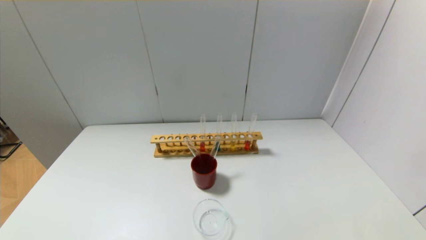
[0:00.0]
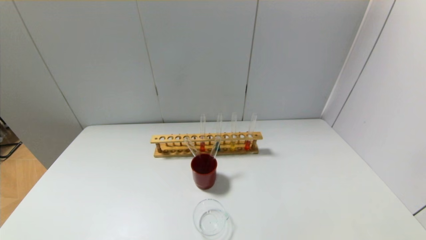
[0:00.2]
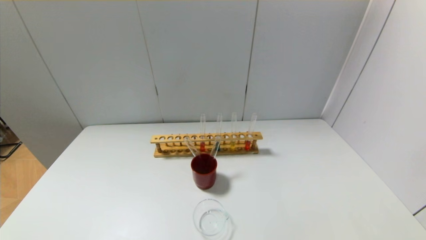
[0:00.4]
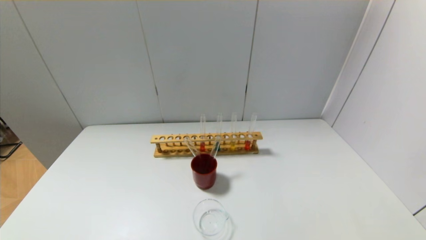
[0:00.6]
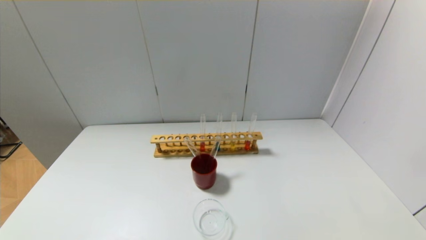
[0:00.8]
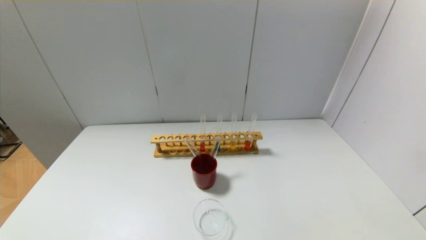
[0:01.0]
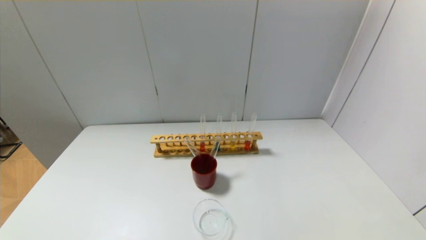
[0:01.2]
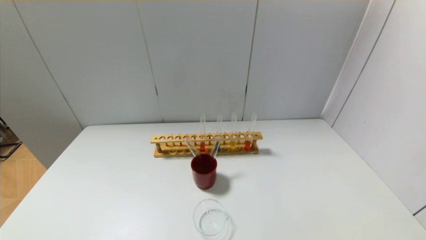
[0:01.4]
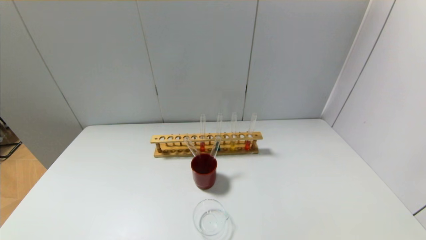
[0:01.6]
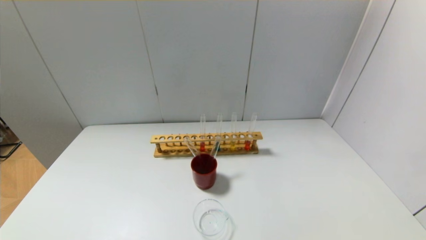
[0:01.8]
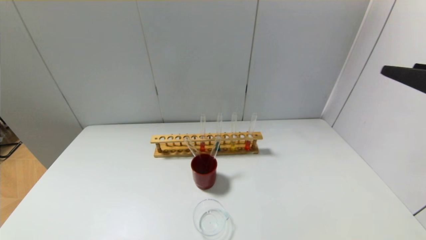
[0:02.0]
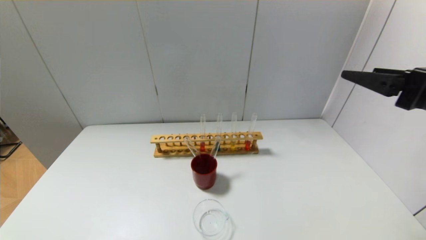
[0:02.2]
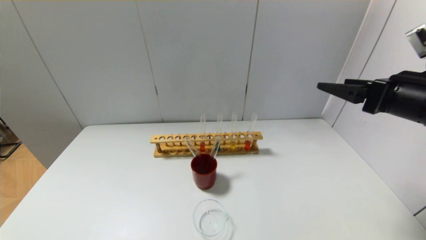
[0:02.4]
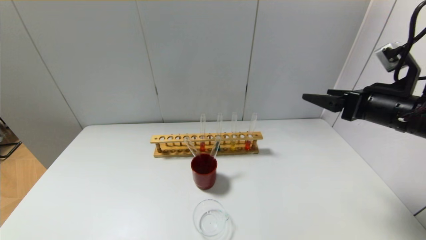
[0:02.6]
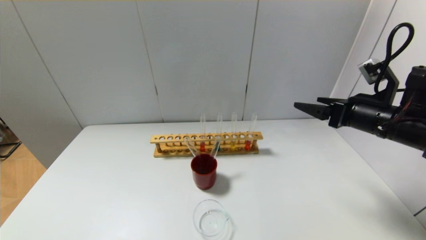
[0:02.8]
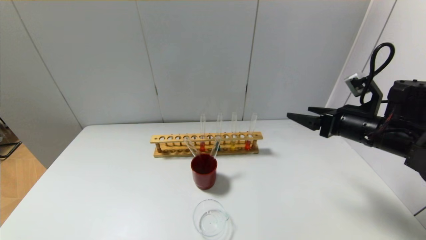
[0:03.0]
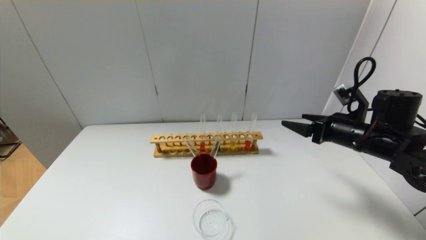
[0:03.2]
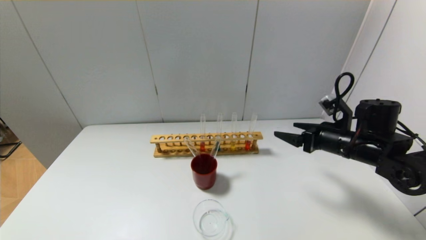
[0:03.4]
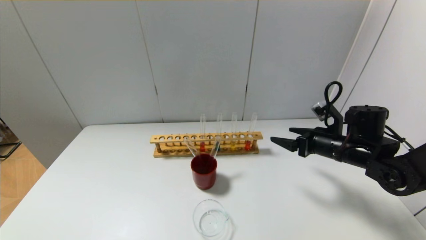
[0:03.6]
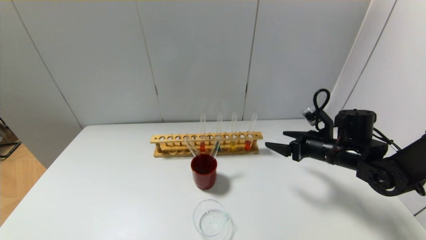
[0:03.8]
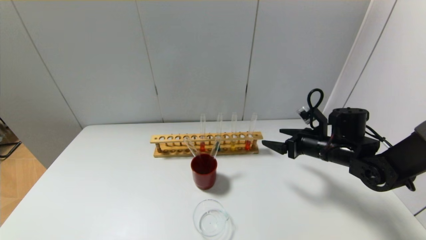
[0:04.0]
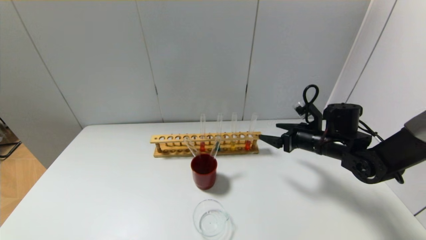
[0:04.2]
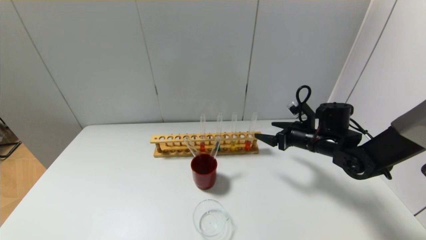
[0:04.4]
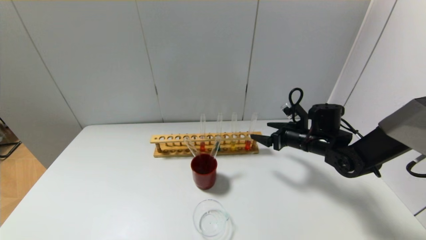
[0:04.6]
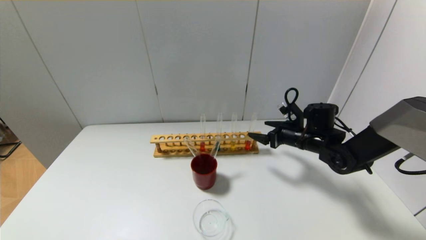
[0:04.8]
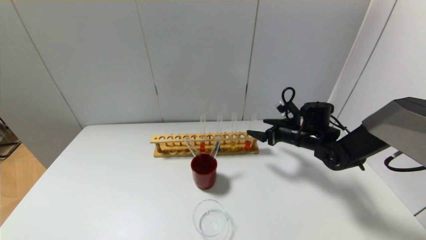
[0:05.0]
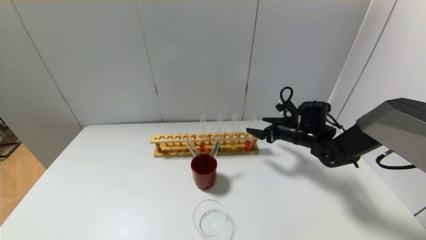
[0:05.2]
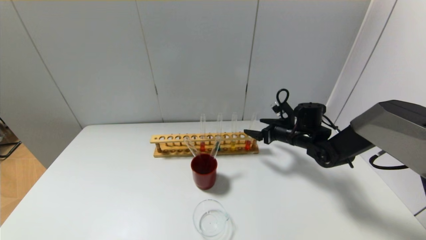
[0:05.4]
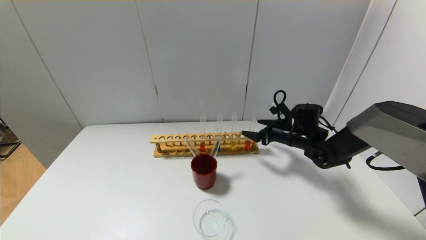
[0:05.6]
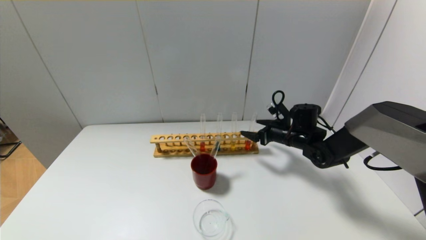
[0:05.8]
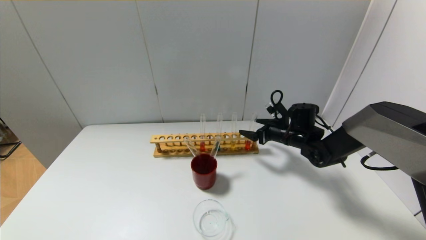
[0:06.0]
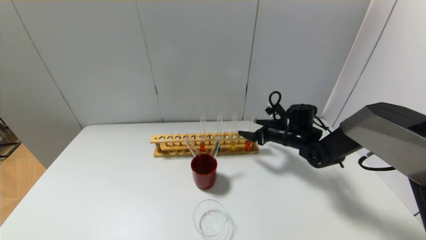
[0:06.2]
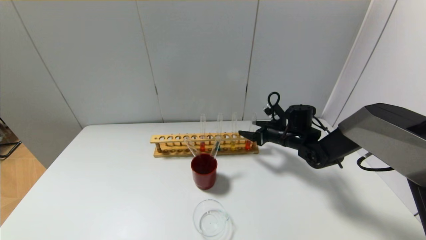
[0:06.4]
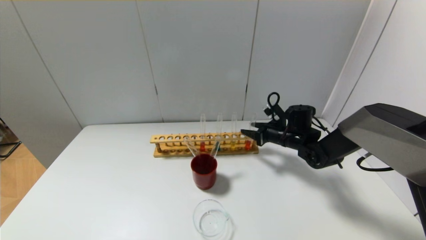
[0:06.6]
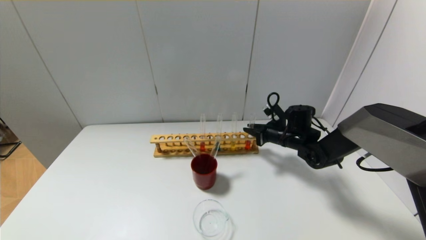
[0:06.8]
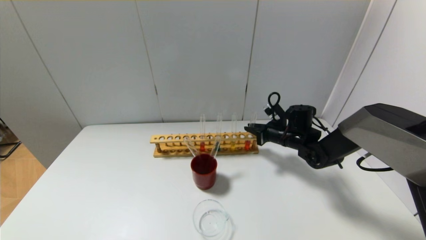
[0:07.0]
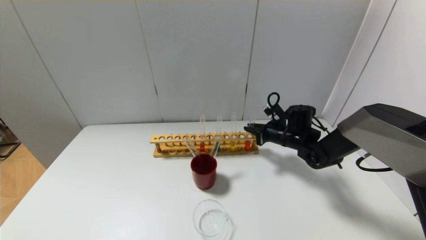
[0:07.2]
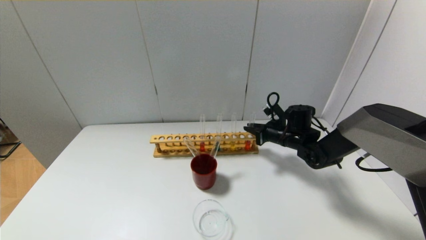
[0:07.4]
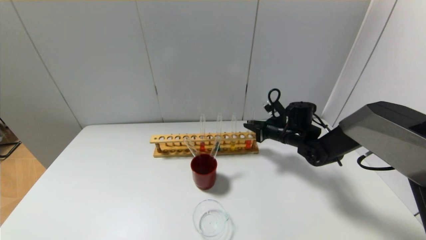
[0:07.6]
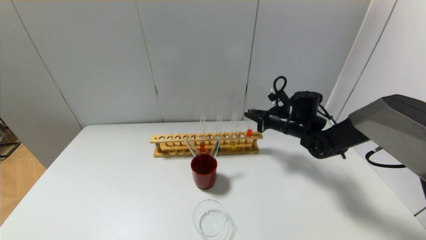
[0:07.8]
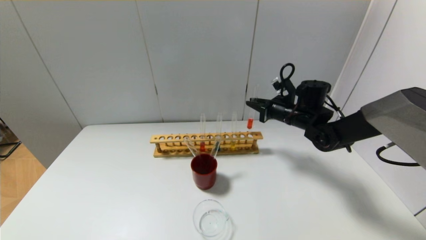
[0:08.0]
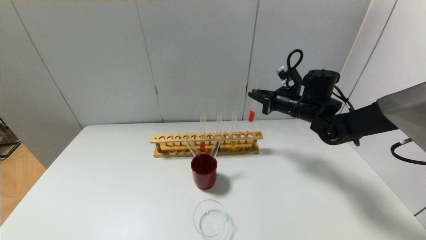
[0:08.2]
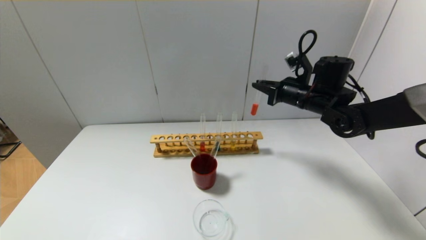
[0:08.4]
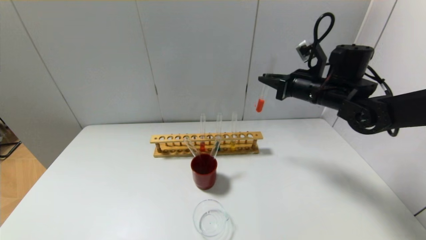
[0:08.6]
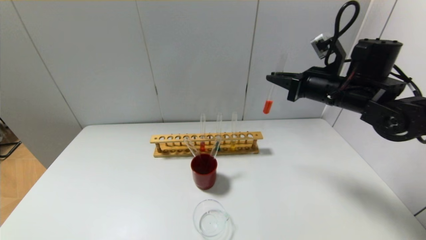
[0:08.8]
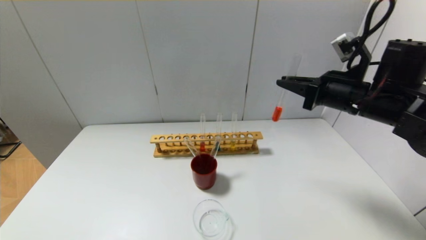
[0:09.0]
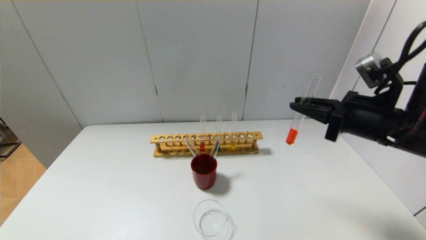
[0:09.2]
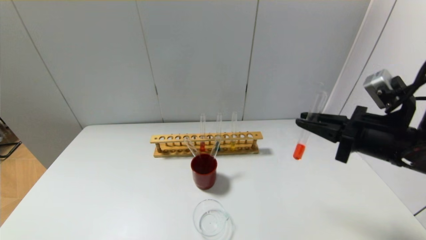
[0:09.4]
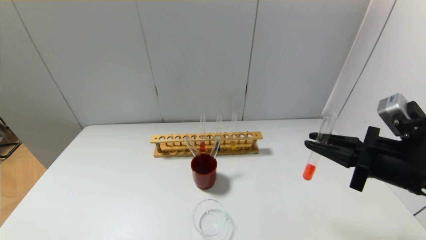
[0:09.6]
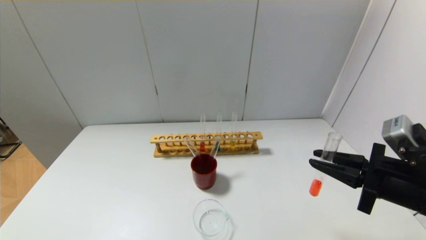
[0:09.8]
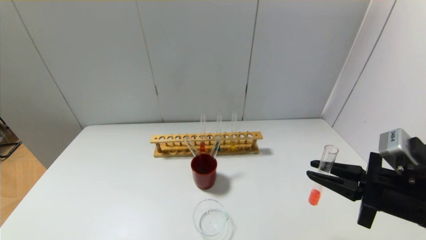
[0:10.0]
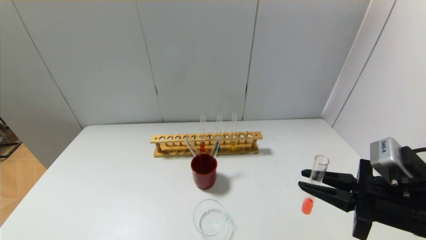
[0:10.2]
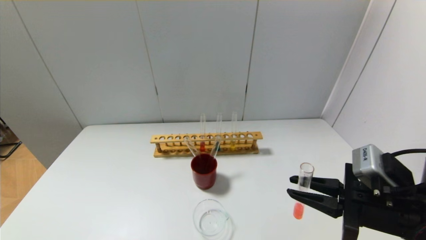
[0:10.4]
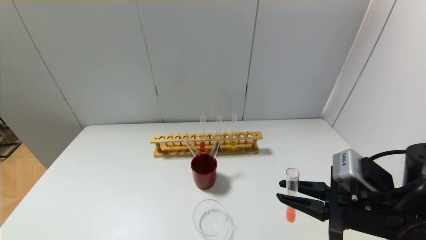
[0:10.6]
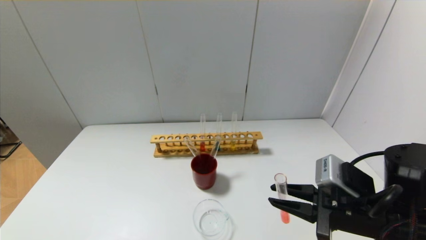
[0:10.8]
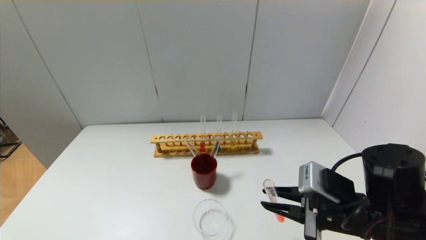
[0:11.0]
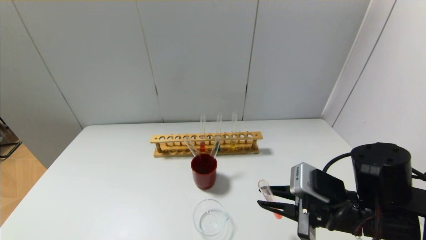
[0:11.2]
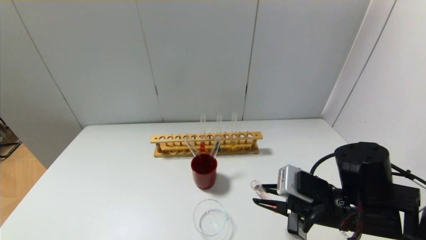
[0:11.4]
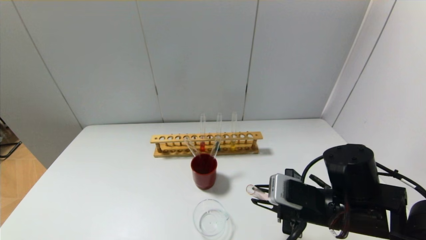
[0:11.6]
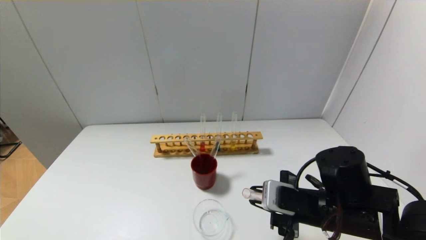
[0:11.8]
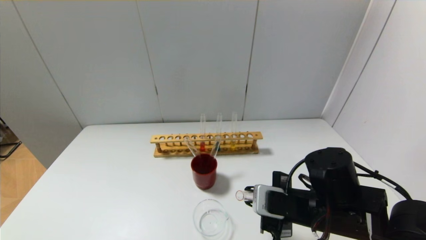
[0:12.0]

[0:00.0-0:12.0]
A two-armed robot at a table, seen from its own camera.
Step, 0:00.0 to 0:07.4: Grasp the red reagent with the right gripper.
0:01.6 to 0:03.0: The right gripper goes about 30 cm forward and downward.
0:03.0 to 0:04.4: The right gripper is displaced downward and forward by roughly 10 cm.
0:04.4 to 0:06.0: The right gripper travels forward by approximately 5 cm.
0:06.0 to 0:07.6: The right gripper closes up.
0:07.6 to 0:09.0: The right gripper moves upward and backward, approximately 20 cm.
0:09.0 to 0:10.4: The right gripper goes about 15 cm backward and downward.
0:10.4 to 0:12.0: The right gripper goes about 10 cm to the left and downward.

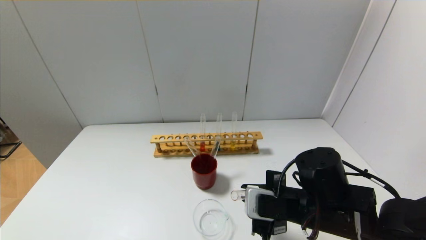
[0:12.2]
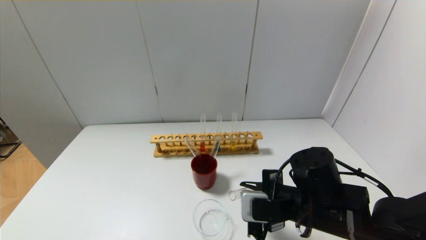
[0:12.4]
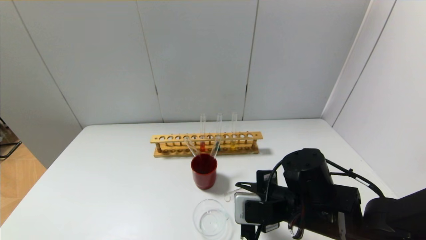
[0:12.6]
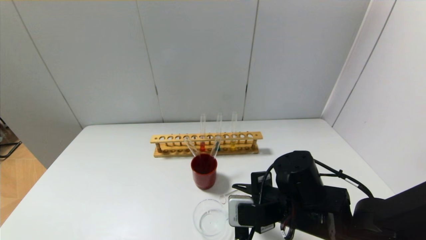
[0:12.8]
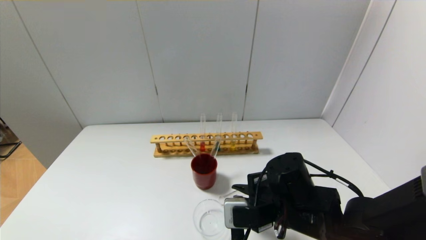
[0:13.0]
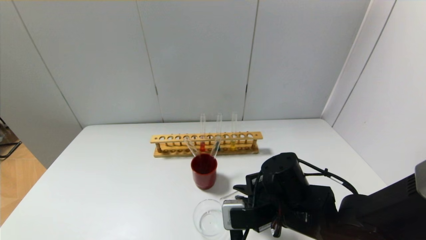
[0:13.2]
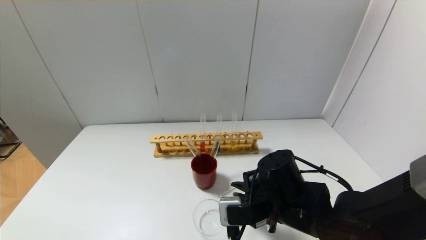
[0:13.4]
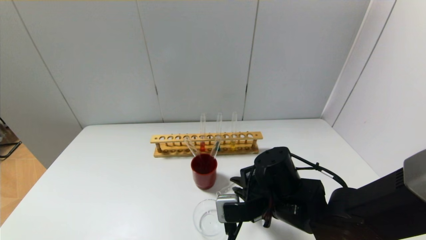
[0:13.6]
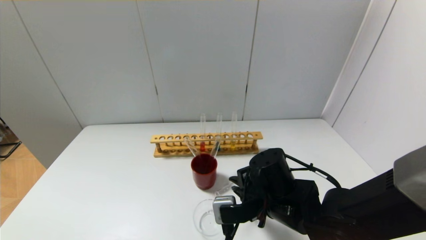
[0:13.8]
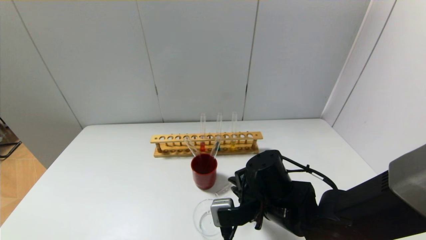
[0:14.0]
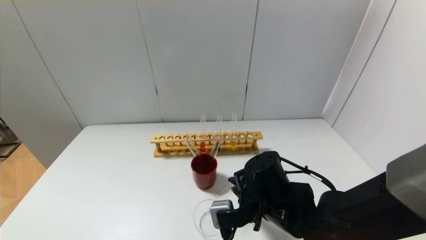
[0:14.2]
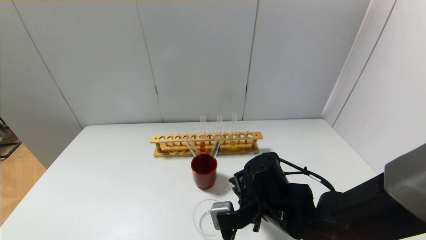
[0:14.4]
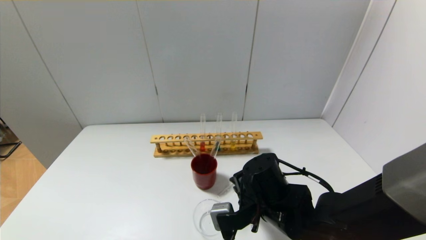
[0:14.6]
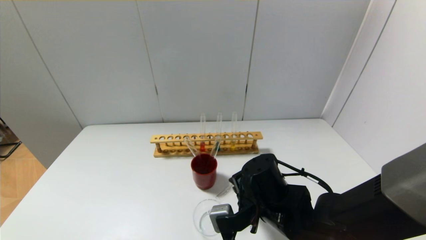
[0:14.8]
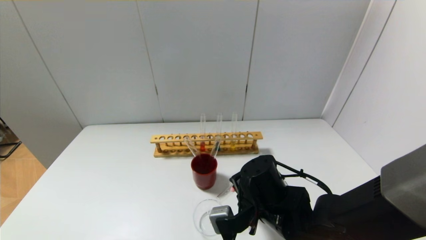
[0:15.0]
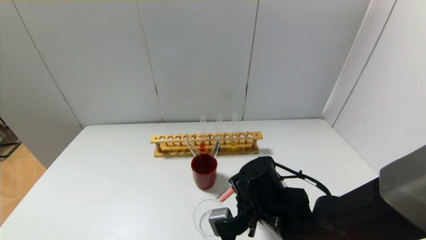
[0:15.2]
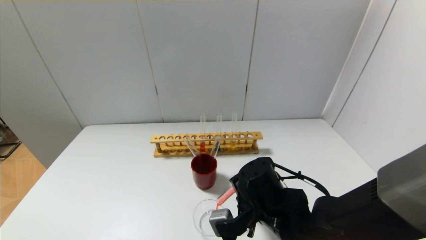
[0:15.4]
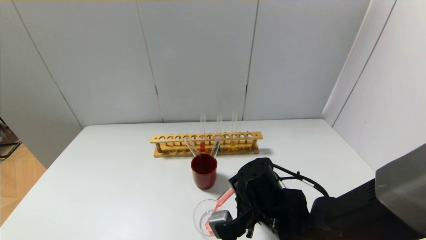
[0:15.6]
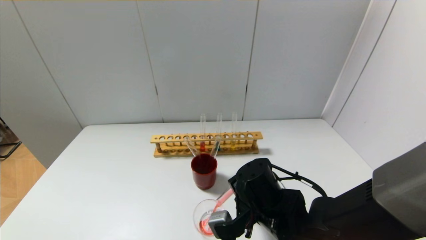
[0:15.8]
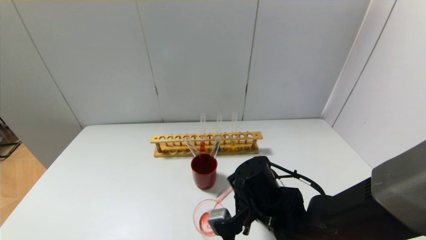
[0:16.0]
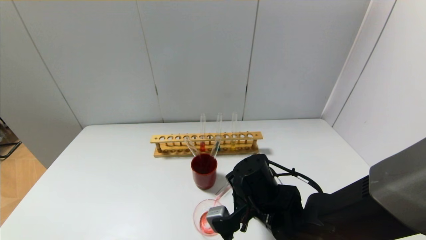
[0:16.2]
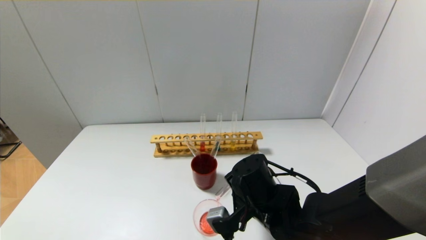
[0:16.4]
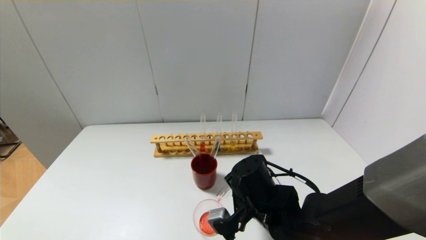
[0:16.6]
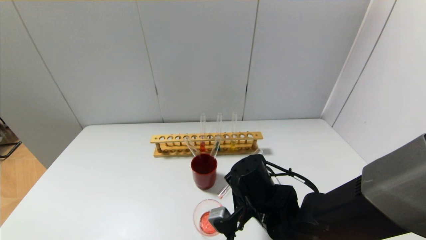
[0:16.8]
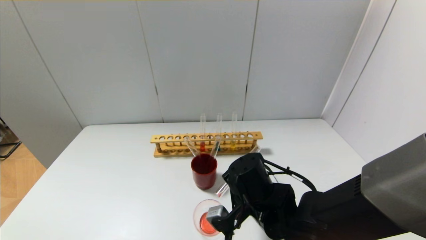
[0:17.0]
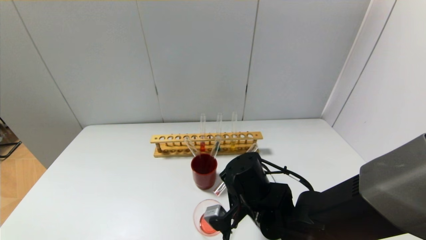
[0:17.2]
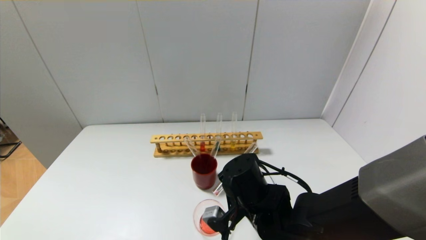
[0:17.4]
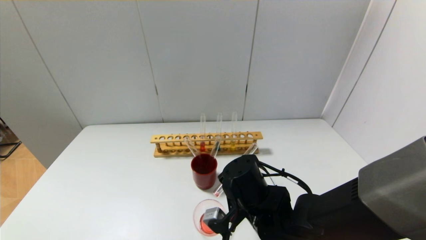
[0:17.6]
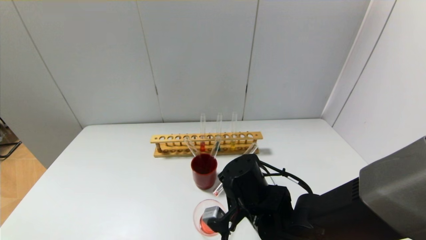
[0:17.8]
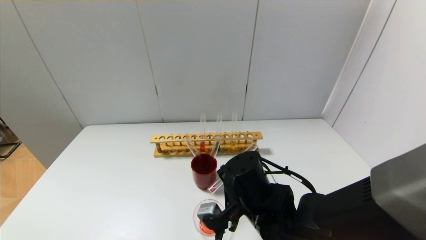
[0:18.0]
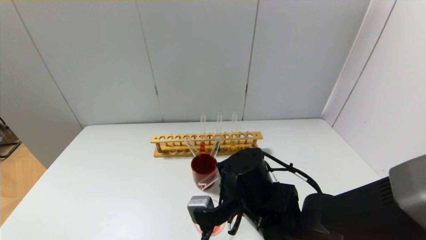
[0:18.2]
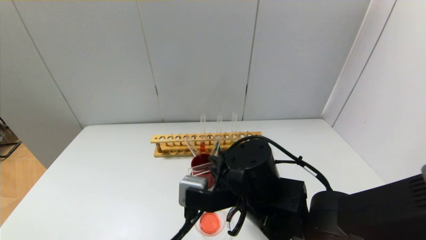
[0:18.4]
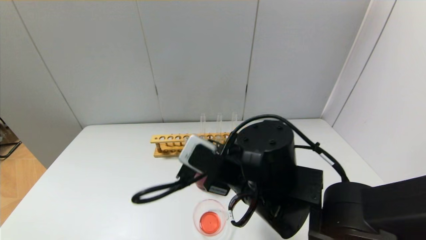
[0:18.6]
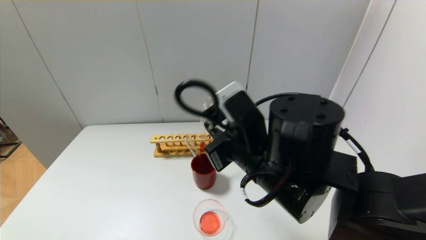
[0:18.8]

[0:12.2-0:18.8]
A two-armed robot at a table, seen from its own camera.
Step, 0:12.2 to 0:18.0: Pour the red reagent into the graduated cylinder with the right gripper.
0:12.2 to 0:13.8: The right gripper heads to the left, covering about 5 cm.
0:13.8 to 0:15.4: The grippers move only a little.
0:15.4 to 0:17.2: The grippers make only small movements.
0:17.2 to 0:18.8: The right gripper moves upward, some 15 cm.
